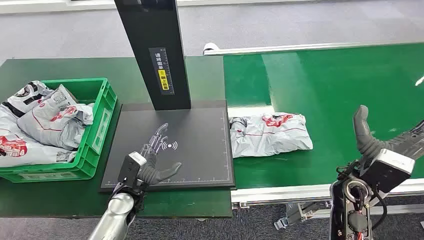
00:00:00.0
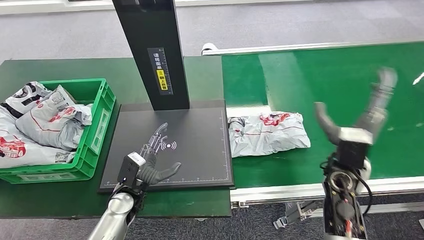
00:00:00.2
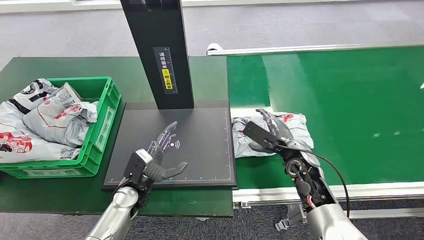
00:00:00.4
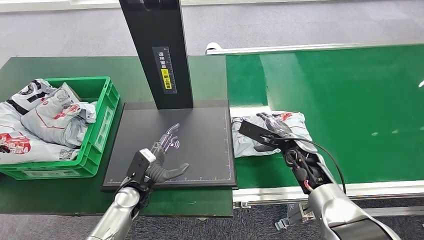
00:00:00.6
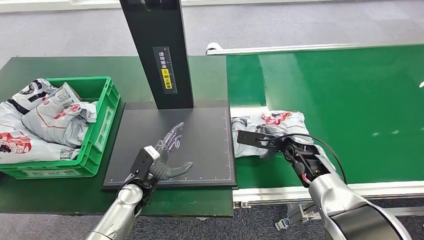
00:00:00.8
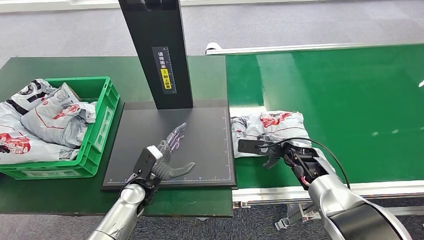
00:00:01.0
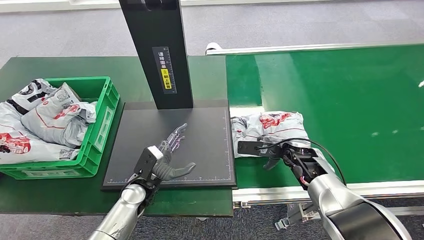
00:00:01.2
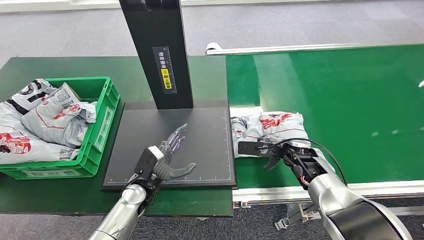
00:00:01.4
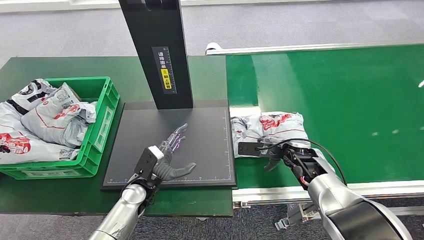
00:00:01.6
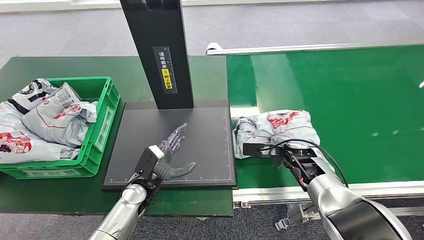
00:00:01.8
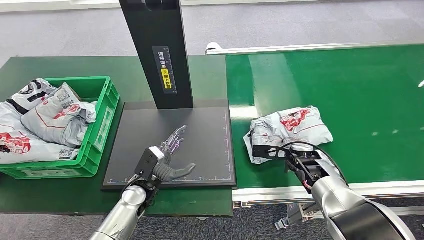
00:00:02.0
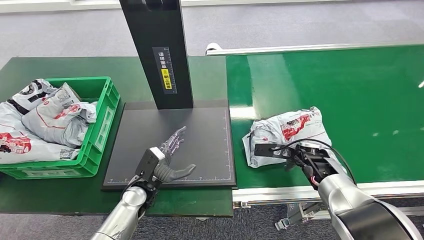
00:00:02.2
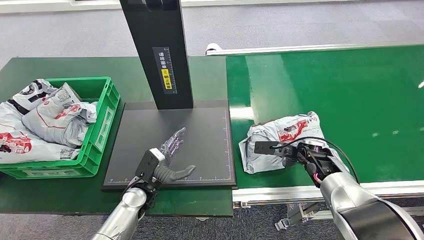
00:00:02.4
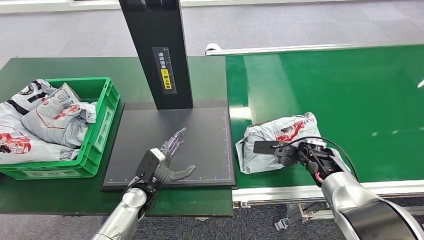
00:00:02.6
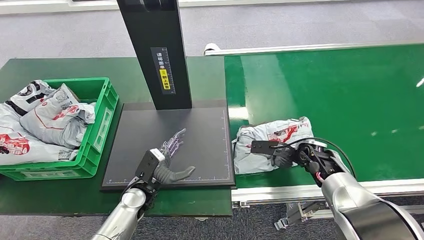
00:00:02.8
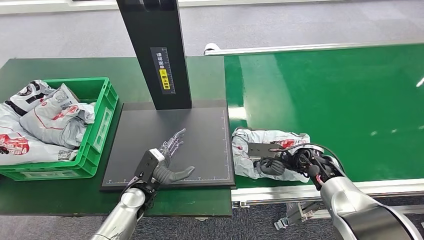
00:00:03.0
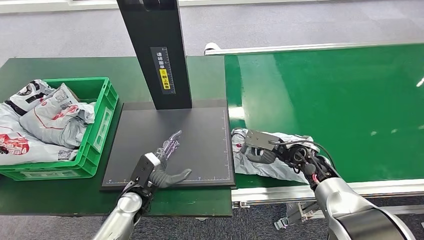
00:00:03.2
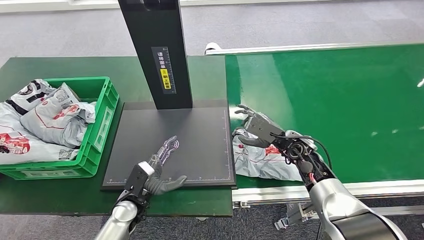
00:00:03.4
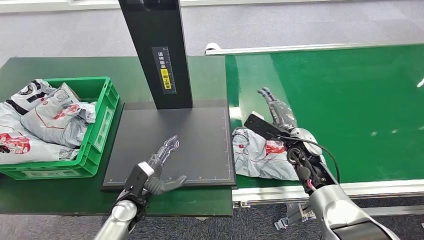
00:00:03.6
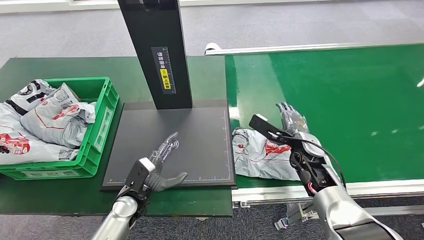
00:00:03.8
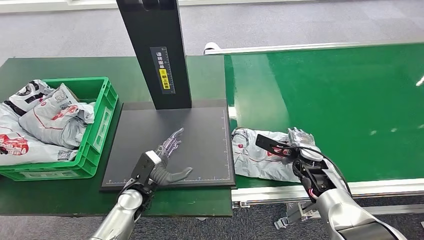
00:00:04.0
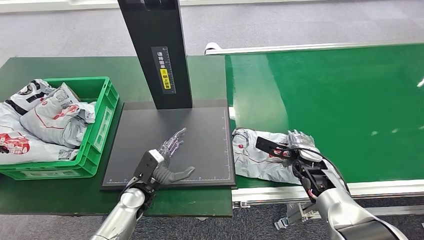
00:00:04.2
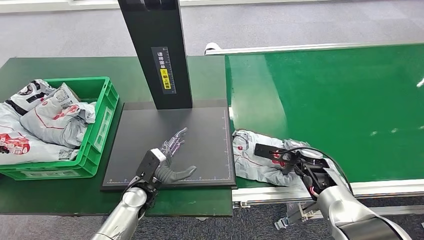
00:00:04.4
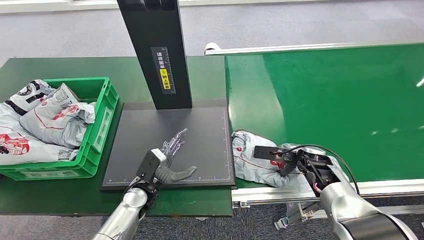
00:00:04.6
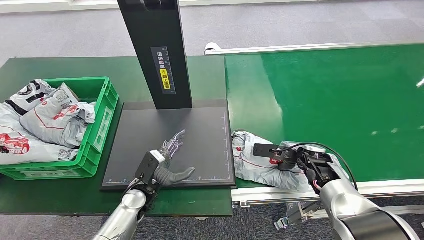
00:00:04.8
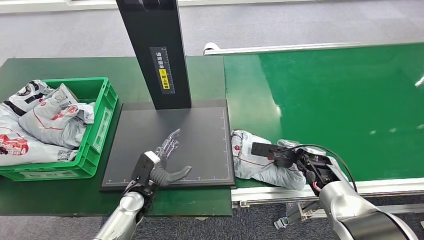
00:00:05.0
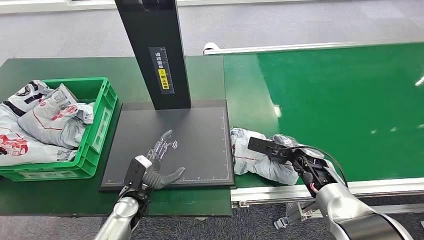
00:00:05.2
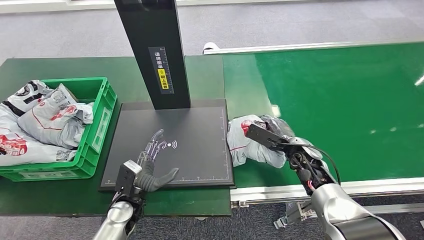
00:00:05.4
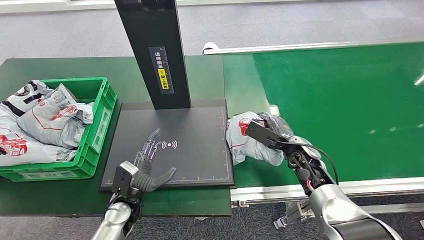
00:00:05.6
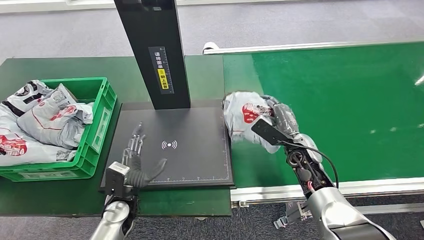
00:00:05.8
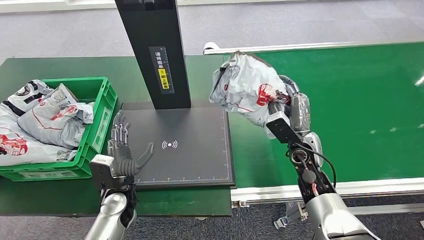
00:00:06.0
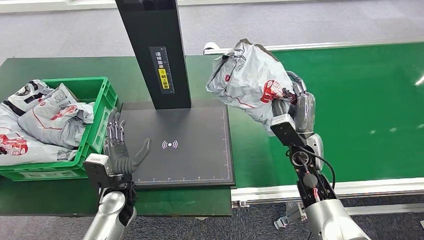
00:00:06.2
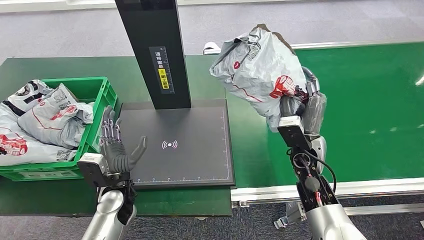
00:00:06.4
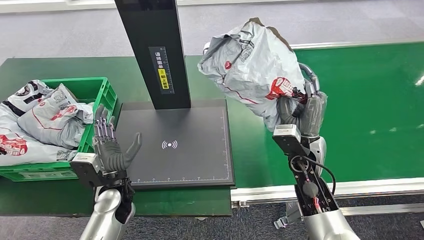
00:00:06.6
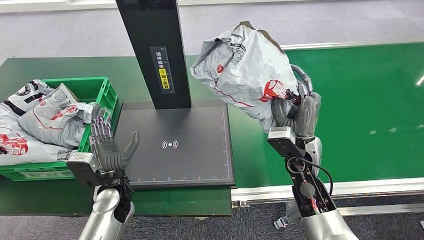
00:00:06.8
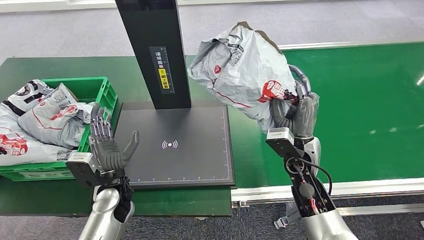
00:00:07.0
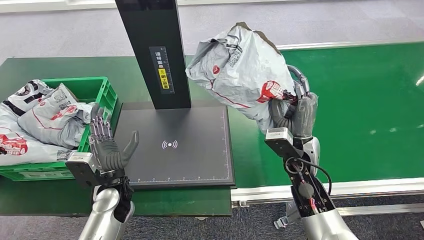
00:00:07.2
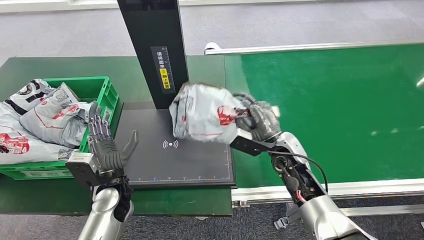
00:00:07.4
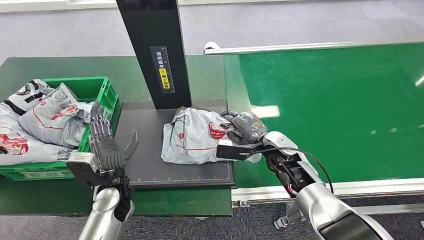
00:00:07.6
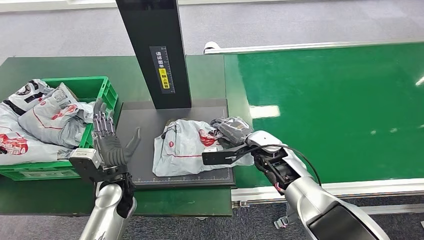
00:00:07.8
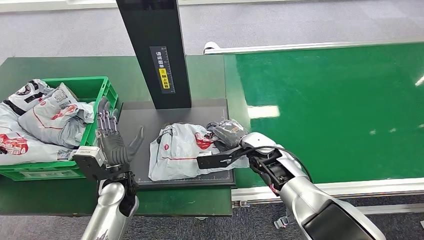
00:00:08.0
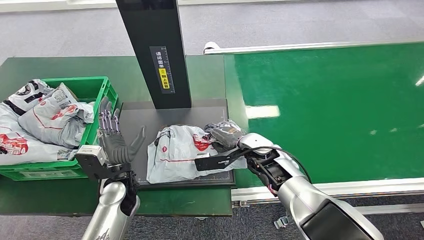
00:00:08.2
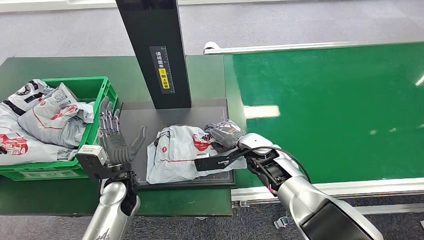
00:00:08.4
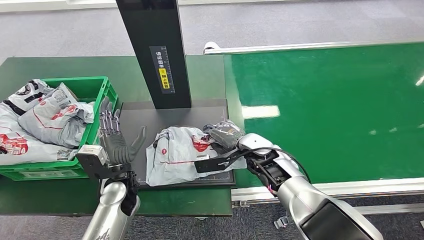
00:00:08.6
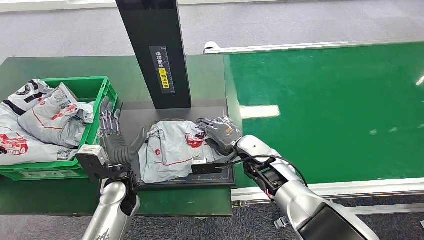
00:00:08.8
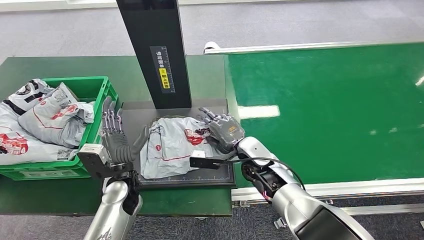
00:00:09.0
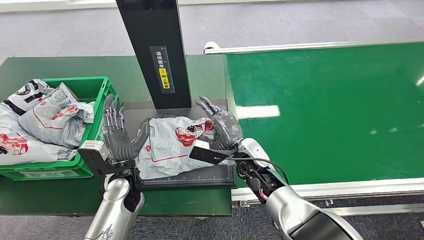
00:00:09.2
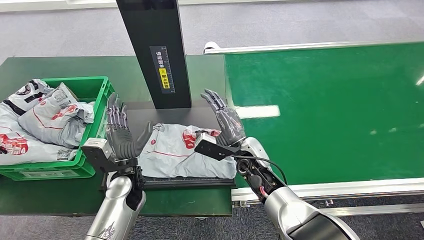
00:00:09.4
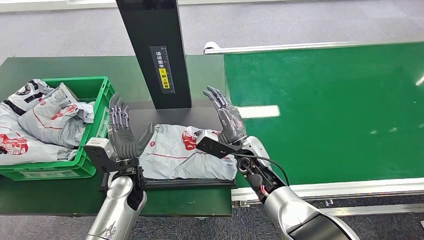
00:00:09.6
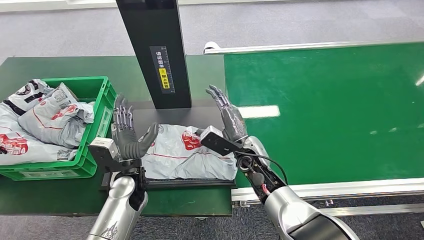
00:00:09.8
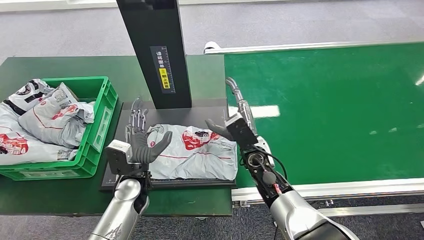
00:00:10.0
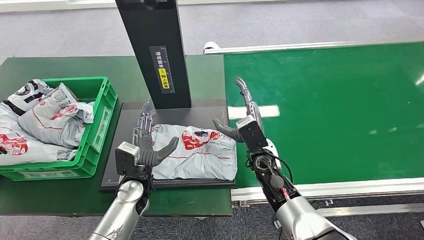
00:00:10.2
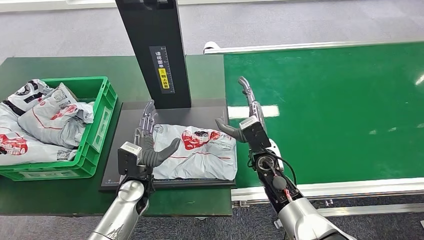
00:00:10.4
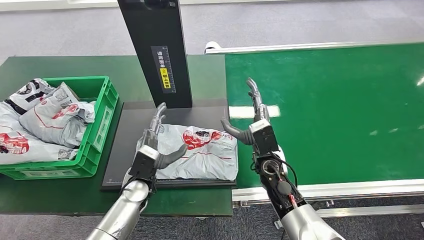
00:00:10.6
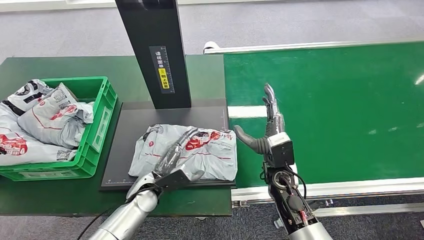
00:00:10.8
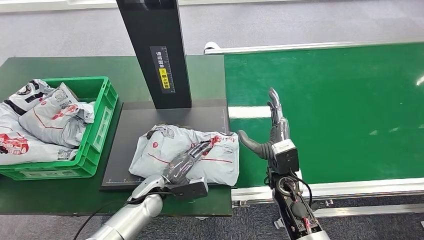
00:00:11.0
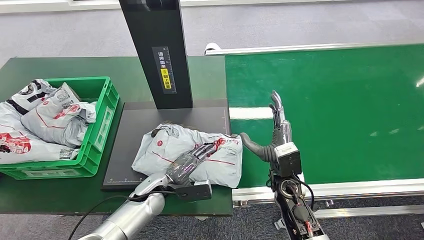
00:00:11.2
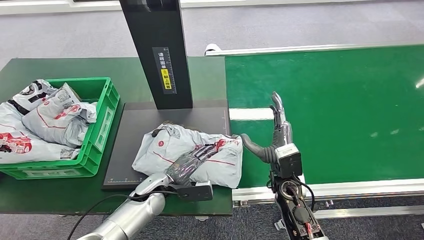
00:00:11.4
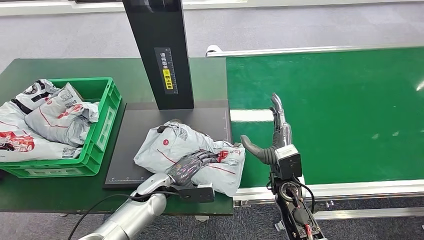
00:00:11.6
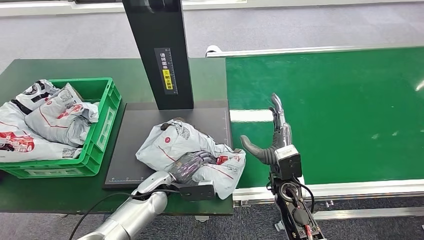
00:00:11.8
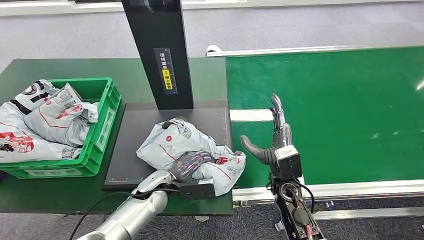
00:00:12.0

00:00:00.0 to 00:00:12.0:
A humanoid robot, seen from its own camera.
Step, 00:00:00.0 to 00:00:06.6: Pick up the package from the conveyor belt.
Step, 00:00:06.8 to 00:00:10.4: Place the package onto the inbound machine.
00:00:07.6 to 00:00:09.0: The right hand shifts roughly 5 cm to the left.

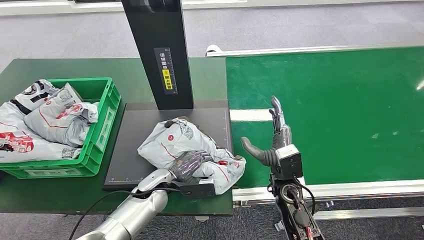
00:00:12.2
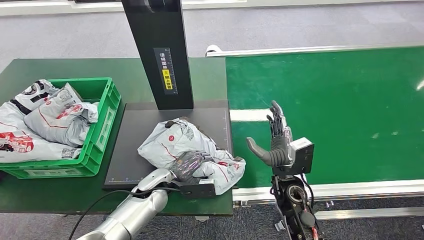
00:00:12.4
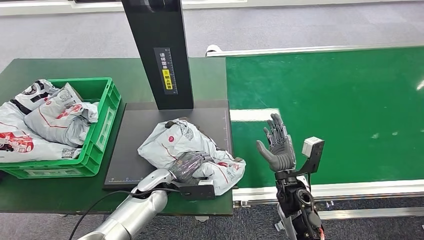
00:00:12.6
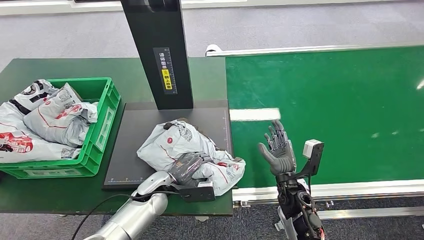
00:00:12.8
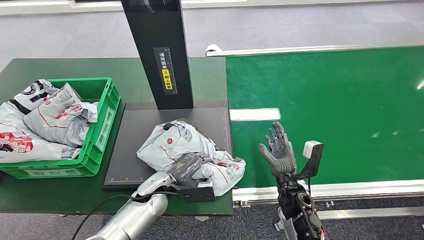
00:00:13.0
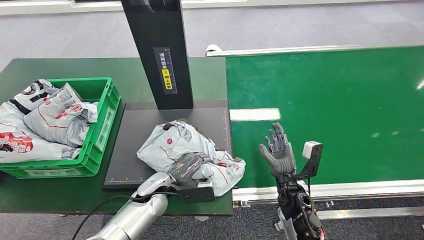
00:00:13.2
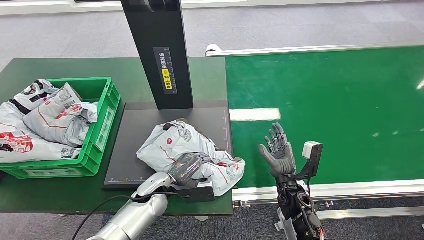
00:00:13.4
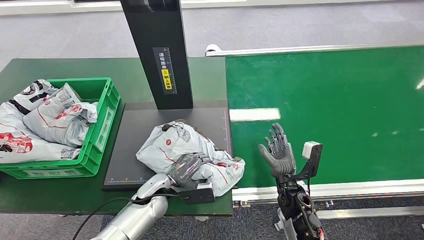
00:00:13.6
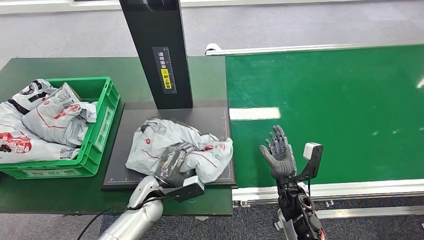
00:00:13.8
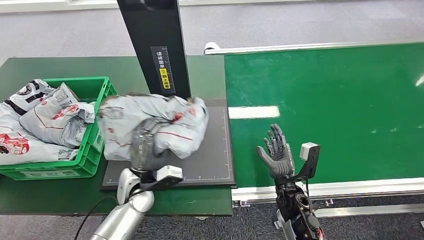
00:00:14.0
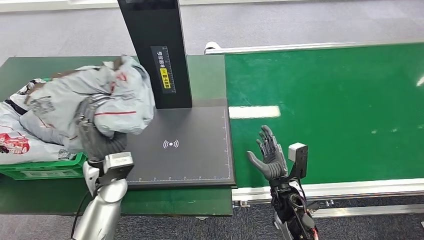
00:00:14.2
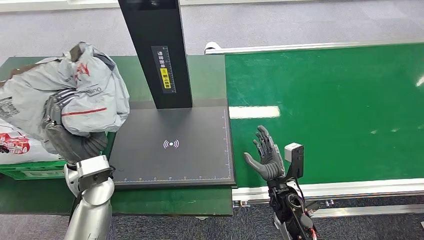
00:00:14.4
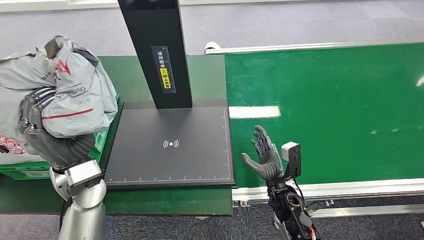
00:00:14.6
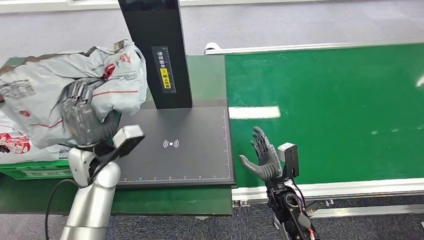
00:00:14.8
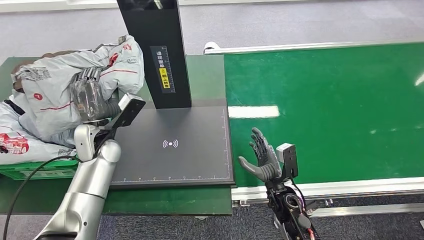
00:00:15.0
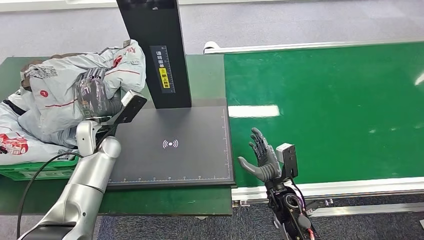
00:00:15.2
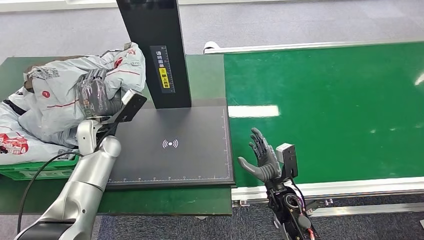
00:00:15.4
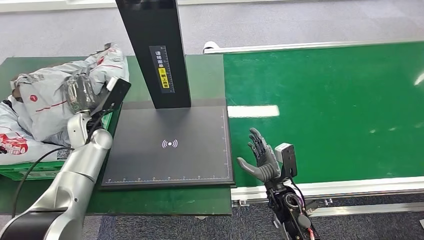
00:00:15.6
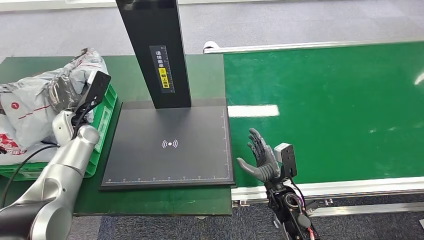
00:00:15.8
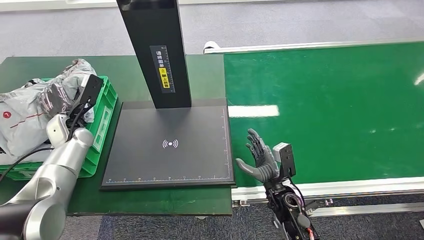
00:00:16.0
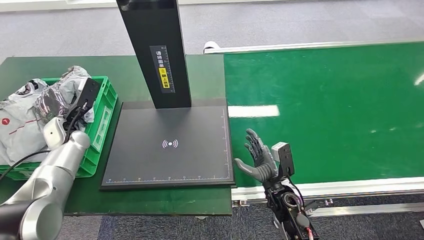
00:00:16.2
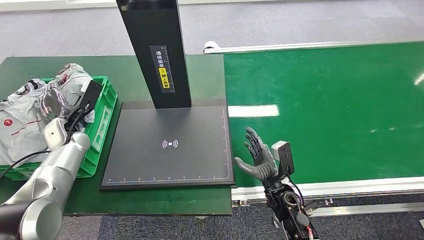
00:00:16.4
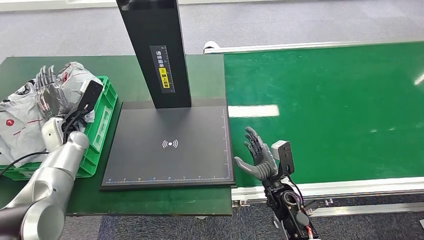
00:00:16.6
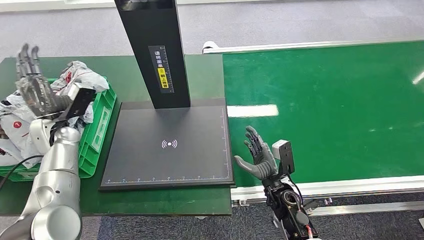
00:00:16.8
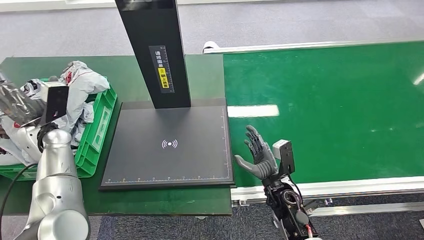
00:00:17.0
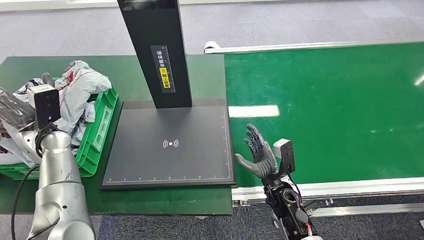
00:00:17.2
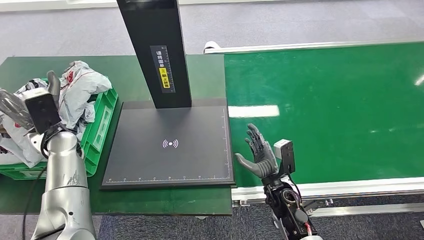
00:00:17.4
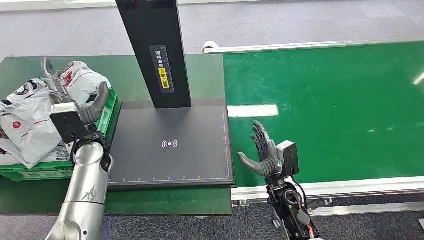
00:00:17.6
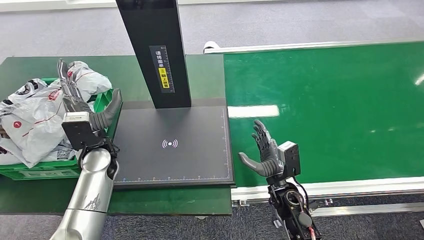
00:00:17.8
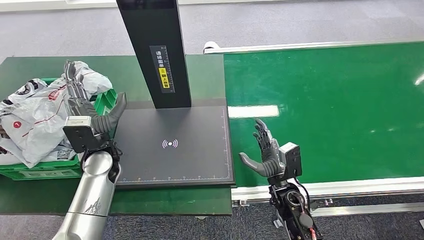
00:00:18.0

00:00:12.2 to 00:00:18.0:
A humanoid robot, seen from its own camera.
Step, 00:00:12.2 to 00:00:15.0: Pick up the package from the inbound machine.
Step, 00:00:15.2 to 00:00:18.0: Place the package into the parcel locker.
00:00:12.2 to 00:00:13.6: The right hand is displaced downward by about 5 cm.
00:00:16.6 to 00:00:18.0: The left hand moves to the right and backward, roughly 15 cm.
